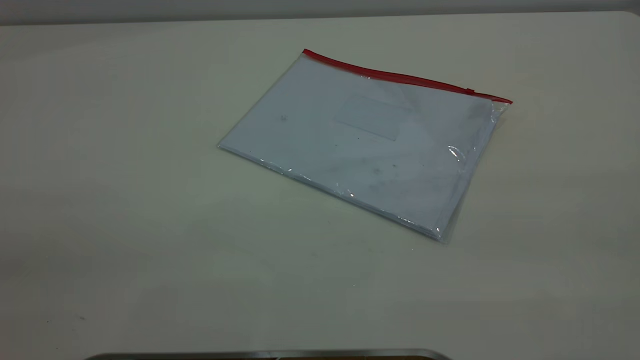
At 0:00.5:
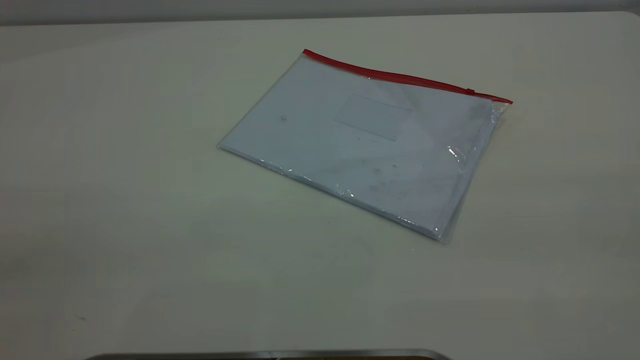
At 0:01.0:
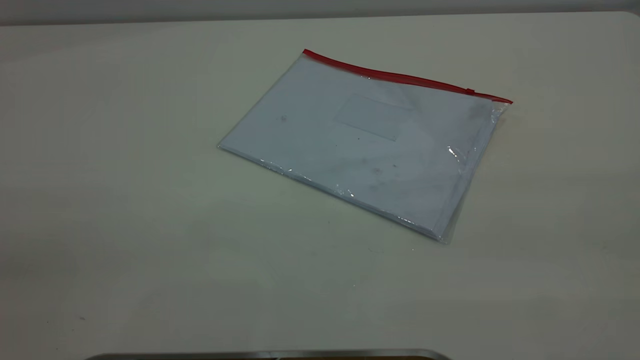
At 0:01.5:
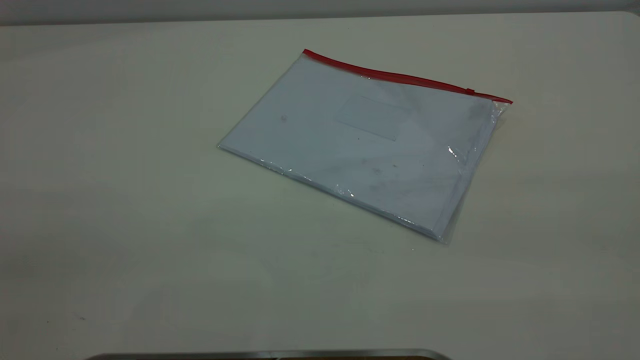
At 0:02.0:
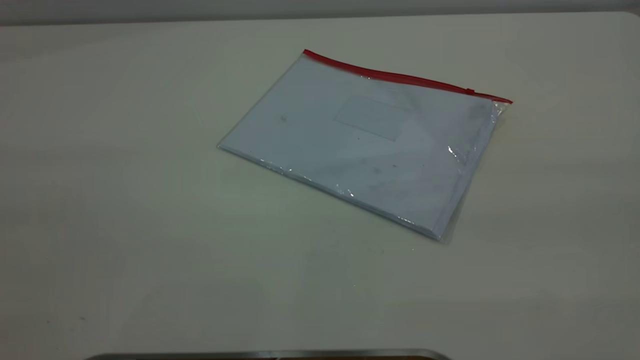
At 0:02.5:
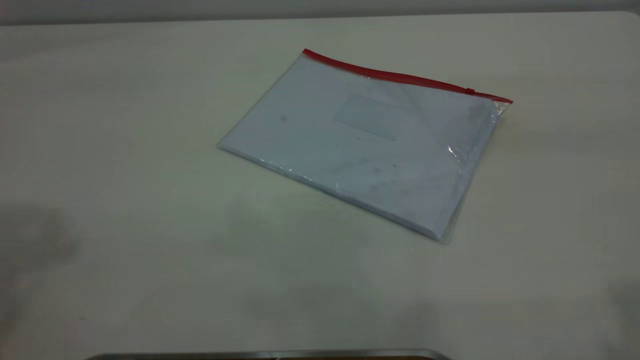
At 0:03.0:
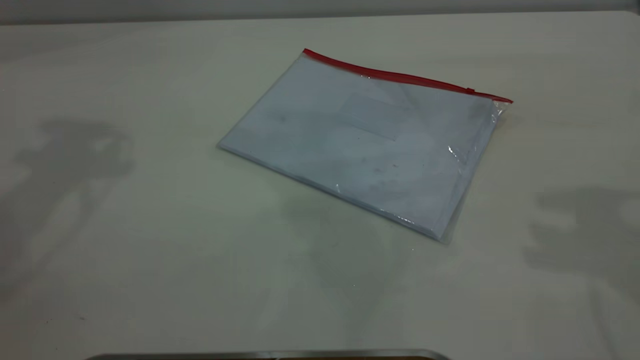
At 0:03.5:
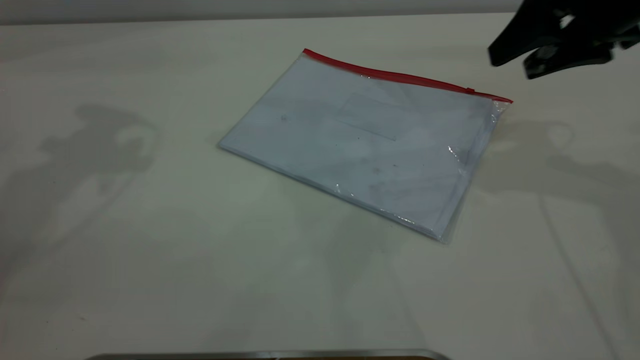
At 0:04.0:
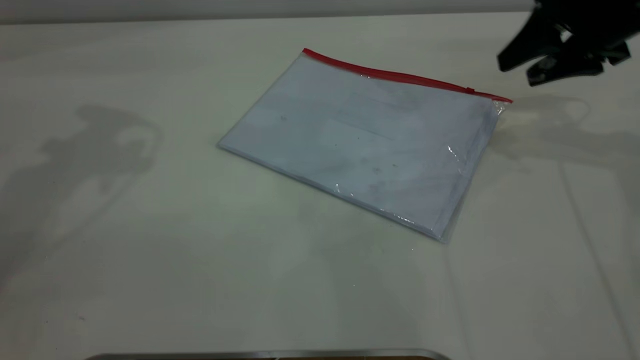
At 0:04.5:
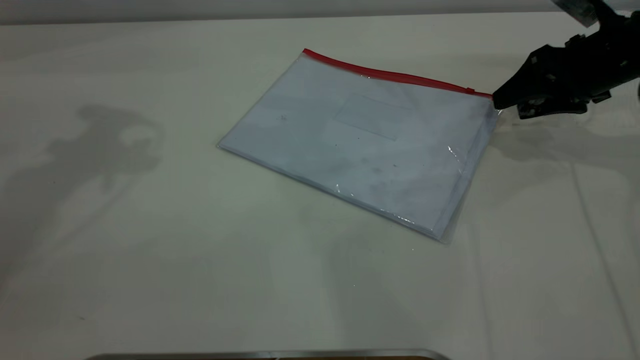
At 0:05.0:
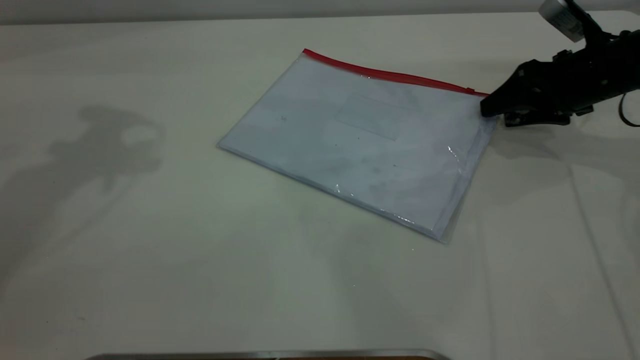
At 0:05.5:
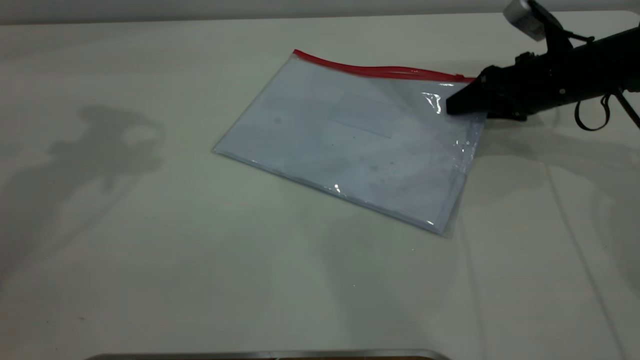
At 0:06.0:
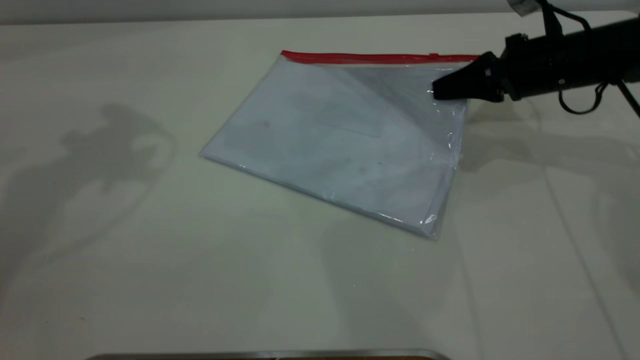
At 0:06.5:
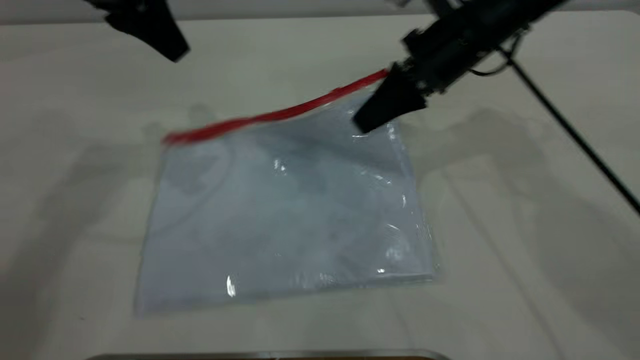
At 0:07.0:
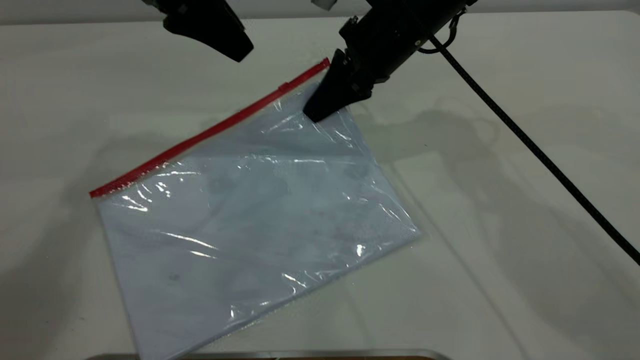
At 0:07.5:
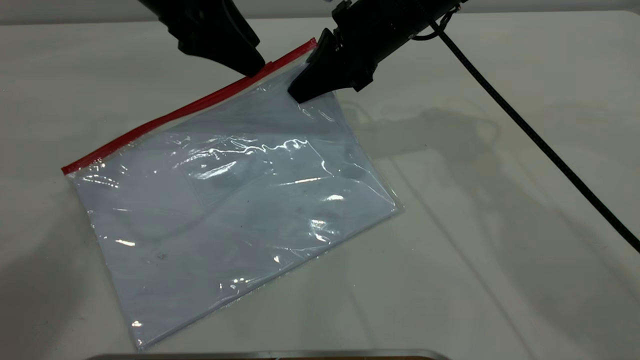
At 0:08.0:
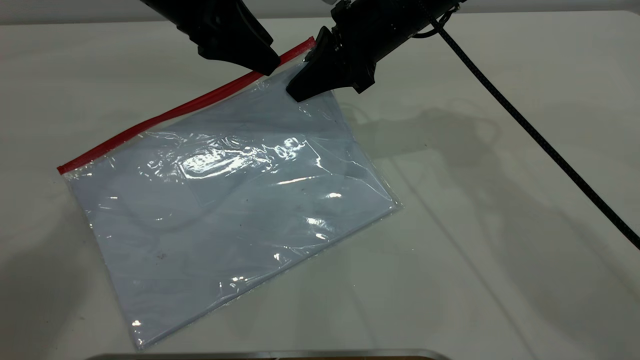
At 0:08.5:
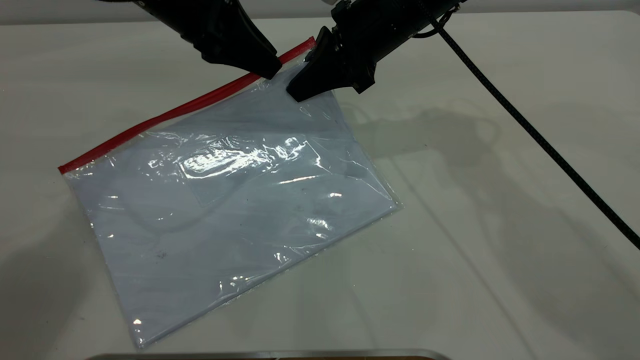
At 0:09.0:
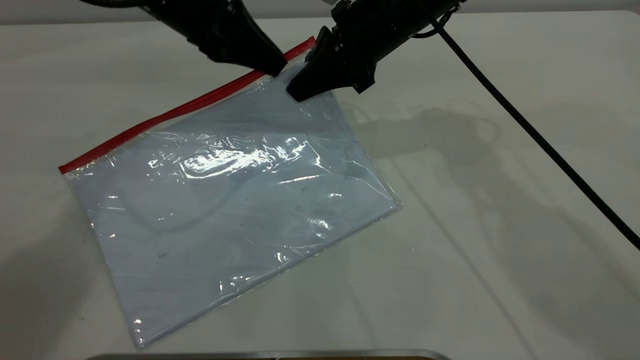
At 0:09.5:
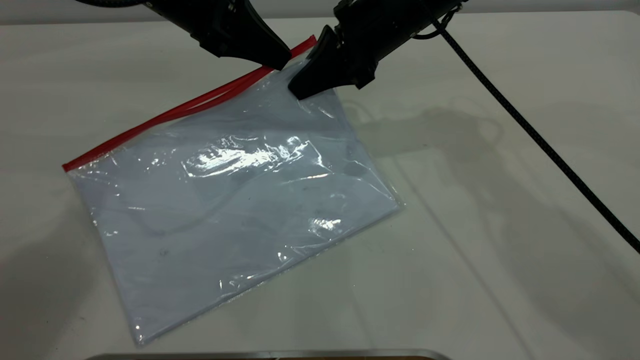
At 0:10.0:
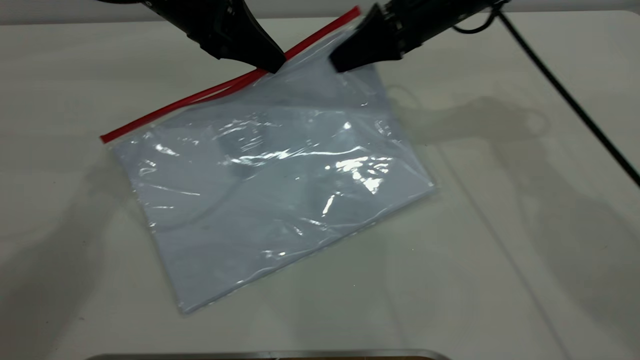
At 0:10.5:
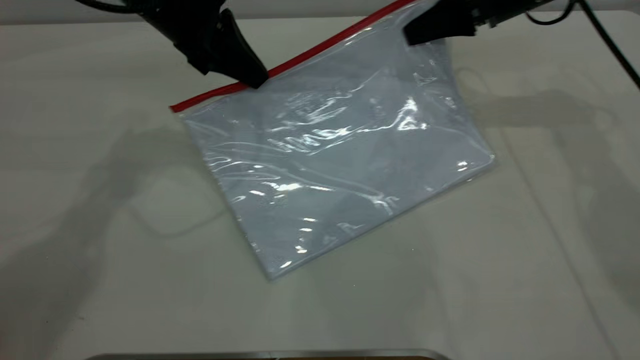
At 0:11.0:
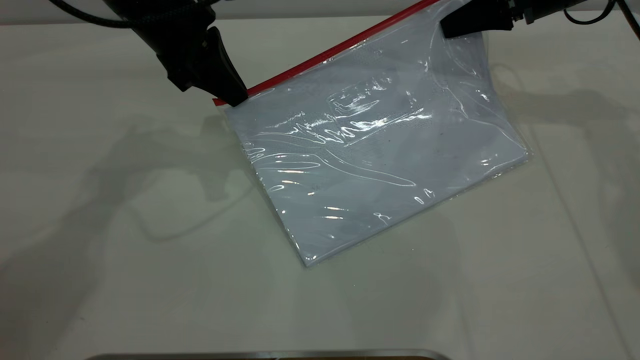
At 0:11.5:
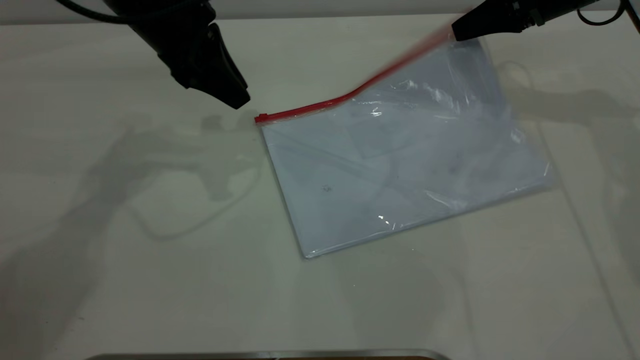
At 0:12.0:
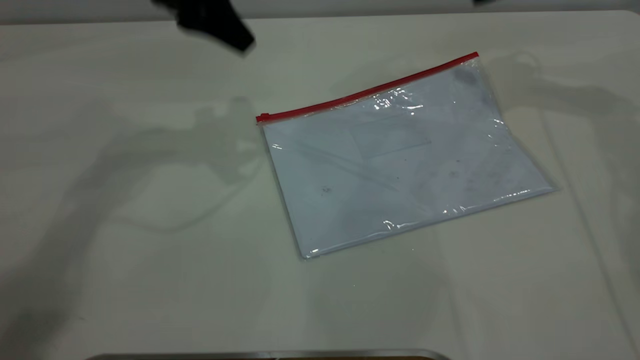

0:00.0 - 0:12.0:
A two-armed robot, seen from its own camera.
Step, 0:00.0 - 0:06.5: Pick up the transparent plastic bag with the right gripper.
Step, 0:07.0 - 0:11.0: Pulling up the zipper on the transparent plastic bag with the left gripper to close it.
0:02.0 - 0:04.0: The right gripper goes approximately 50 cm forward and downward.
0:04.0 - 0:06.0: The right gripper heads downward and to the left, covering about 10 cm, and closes.
0:06.0 - 0:08.0: The left gripper goes about 15 cm downward and to the right. Meanwhile the right gripper heads to the left, covering some 20 cm.
0:08.0 - 0:10.0: The right gripper is displaced to the right by some 5 cm. Meanwhile the left gripper closes its fingers.
0:10.0 - 0:12.0: The right gripper shifts about 15 cm to the right and upward, and opens up. The left gripper is displaced upward by roughly 5 cm, and opens.

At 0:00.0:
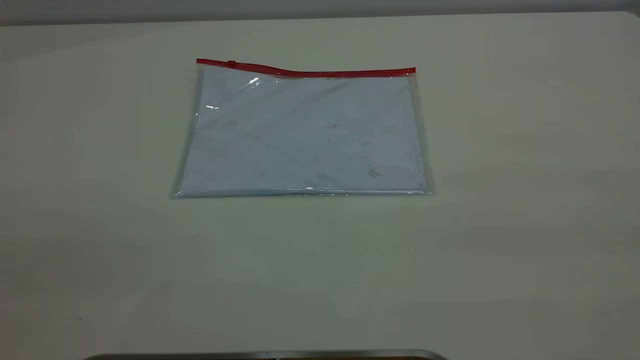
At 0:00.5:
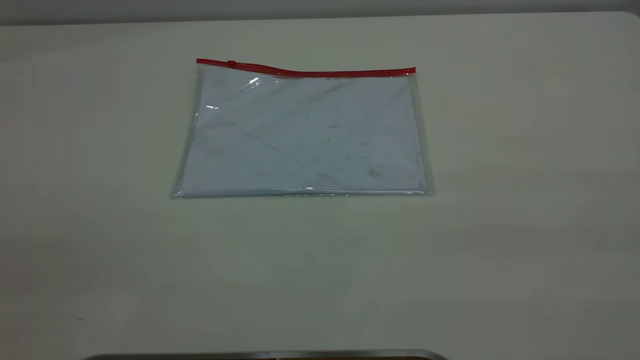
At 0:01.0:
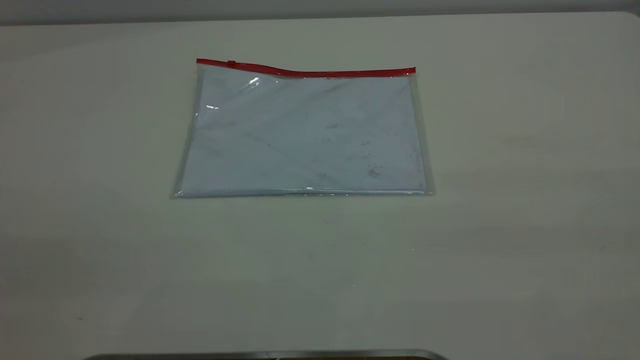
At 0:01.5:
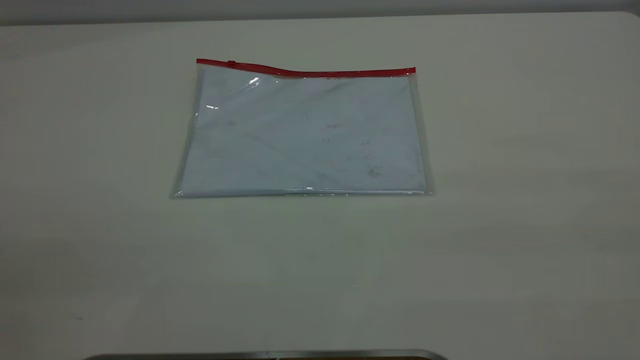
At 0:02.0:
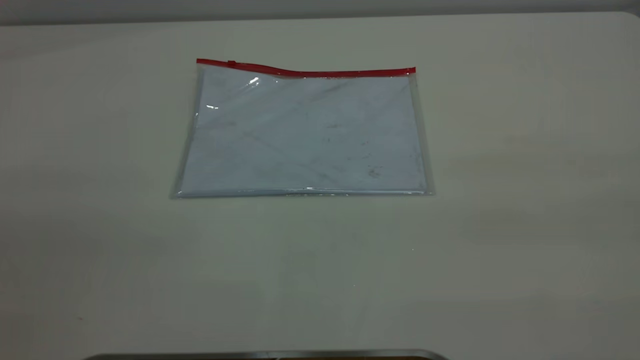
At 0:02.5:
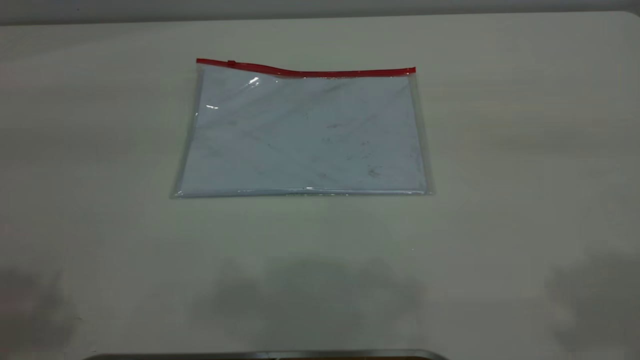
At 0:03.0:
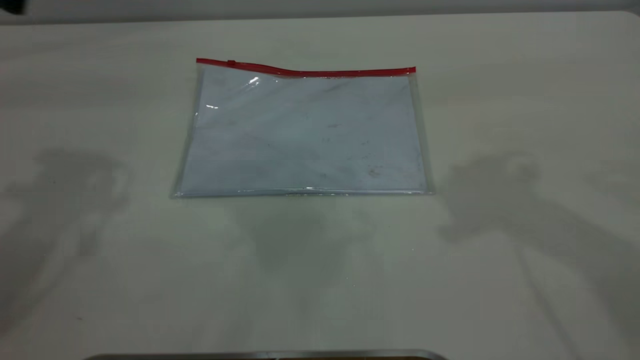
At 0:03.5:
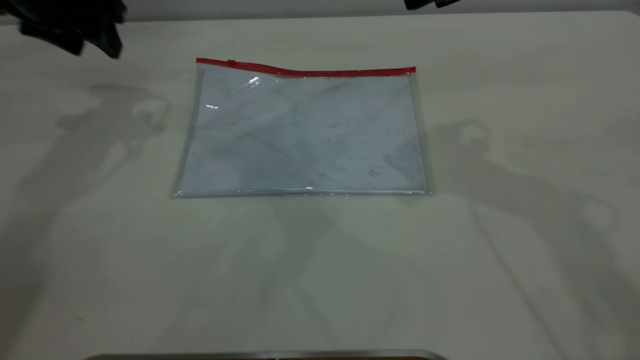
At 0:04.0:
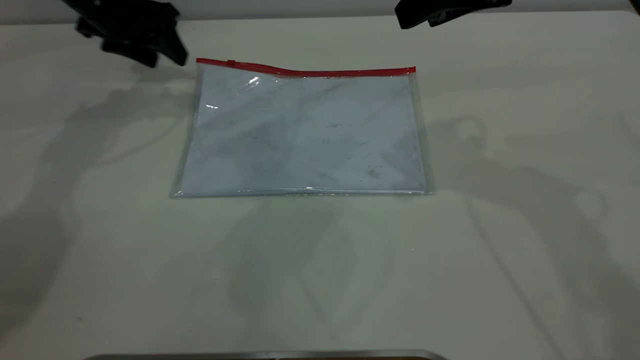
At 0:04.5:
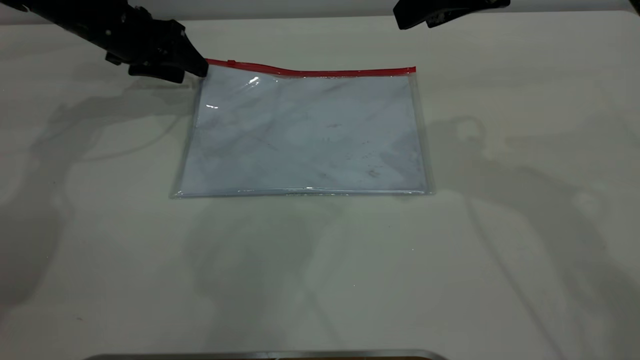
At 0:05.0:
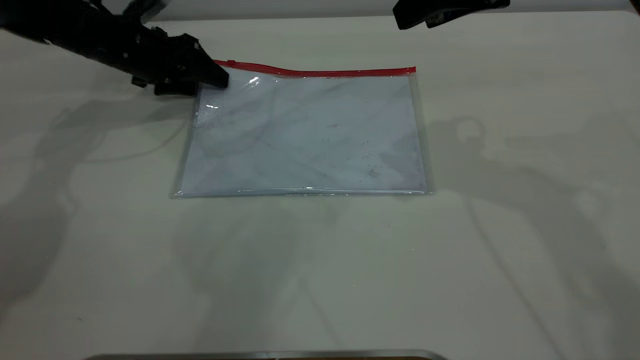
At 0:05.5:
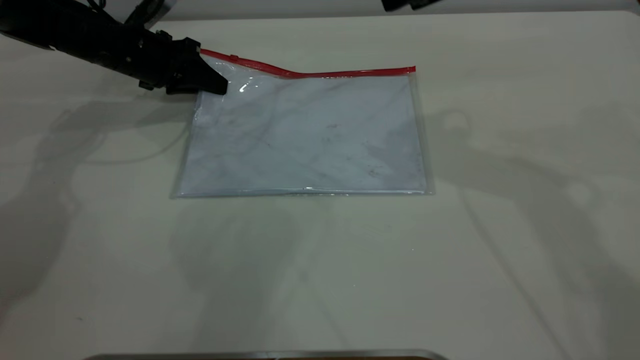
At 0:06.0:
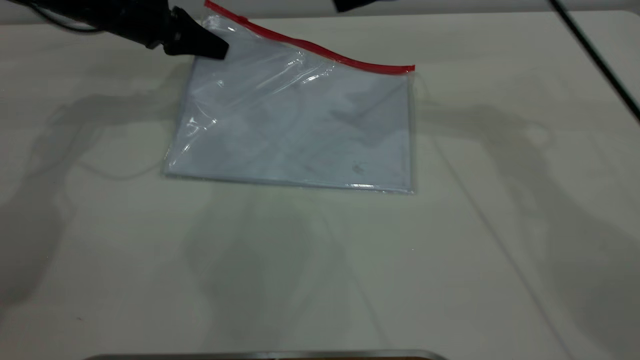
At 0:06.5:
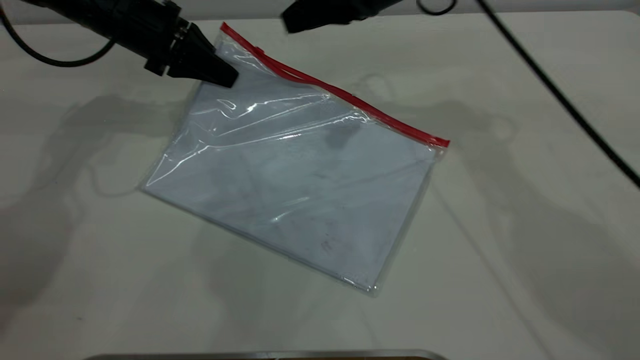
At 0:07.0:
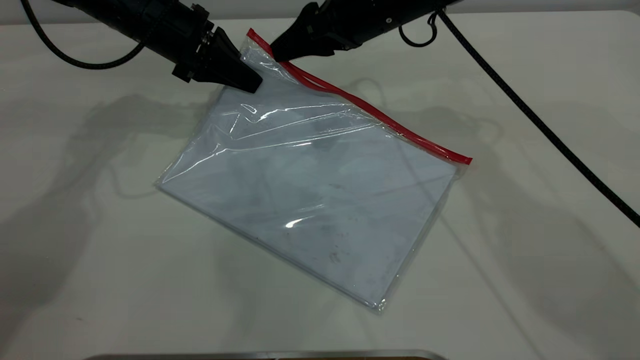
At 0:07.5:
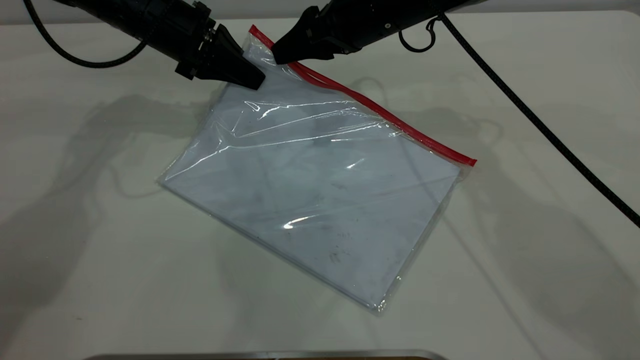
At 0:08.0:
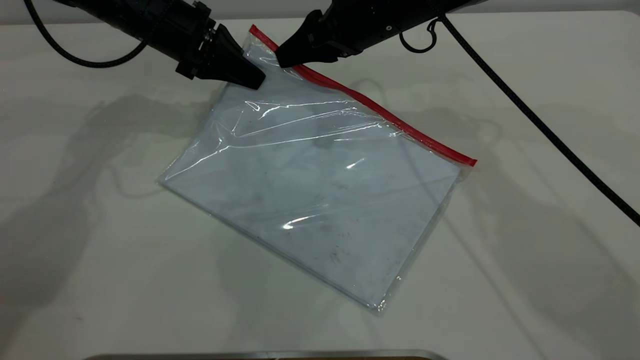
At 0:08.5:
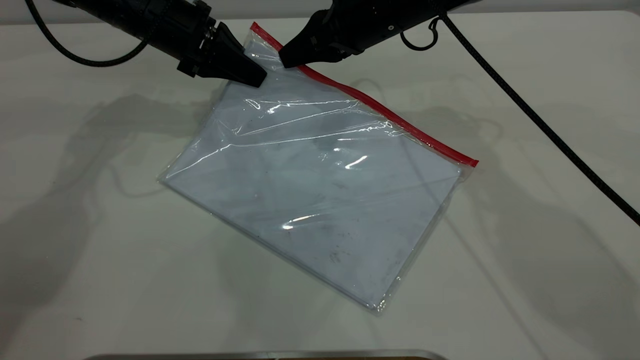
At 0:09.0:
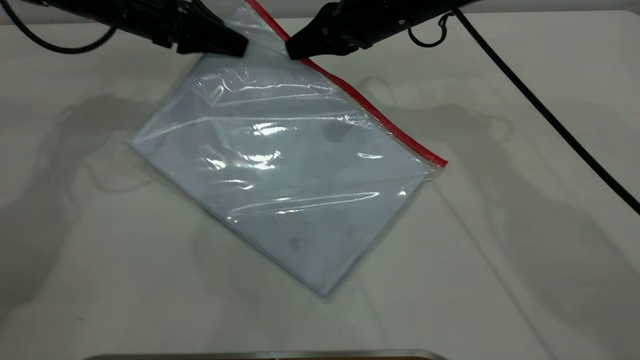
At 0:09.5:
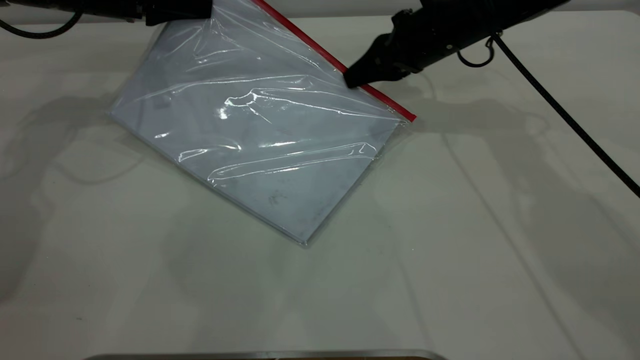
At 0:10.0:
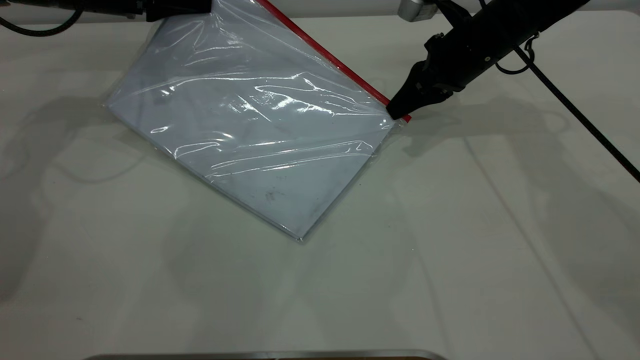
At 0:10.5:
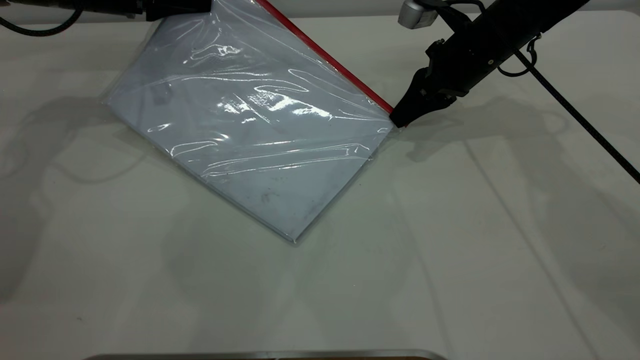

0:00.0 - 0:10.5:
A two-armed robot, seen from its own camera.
Step, 0:00.0 - 0:05.5: Pick up the transparent plastic bag with the left gripper.
0:02.0 - 0:04.0: The right gripper moves forward, about 35 cm, and opens its fingers. Meanwhile the left gripper travels forward and downward by some 50 cm.
0:04.0 - 0:06.5: The right gripper goes about 15 cm forward, to the left and downward. Meanwhile the left gripper closes its fingers.
0:06.5 - 0:08.5: The right gripper closes its fingers.
0:08.5 - 0:10.5: The right gripper heads to the right and downward, covering some 10 cm. Meanwhile the left gripper is displaced to the left by roughly 10 cm.
